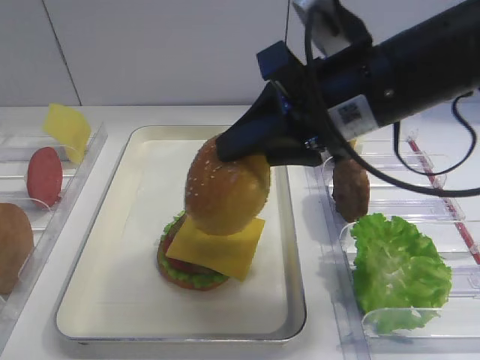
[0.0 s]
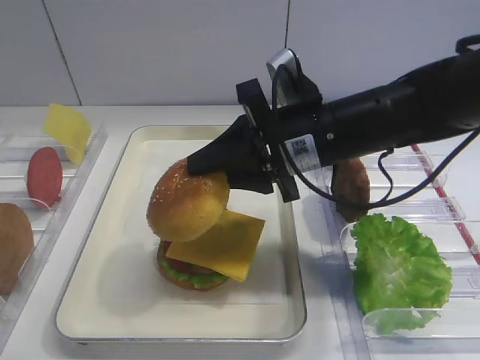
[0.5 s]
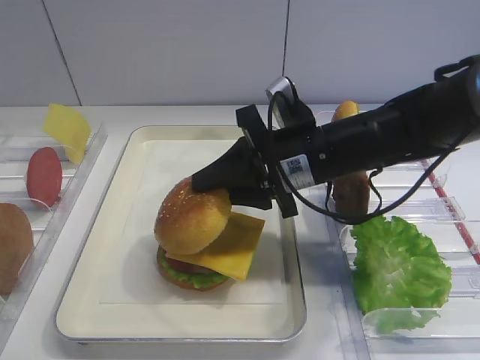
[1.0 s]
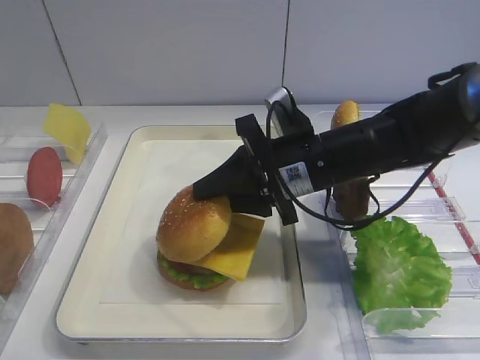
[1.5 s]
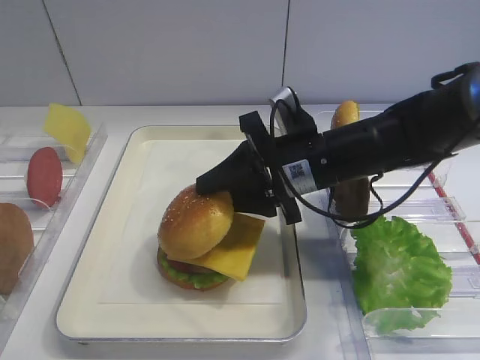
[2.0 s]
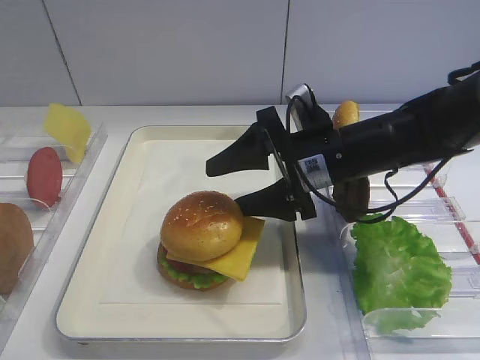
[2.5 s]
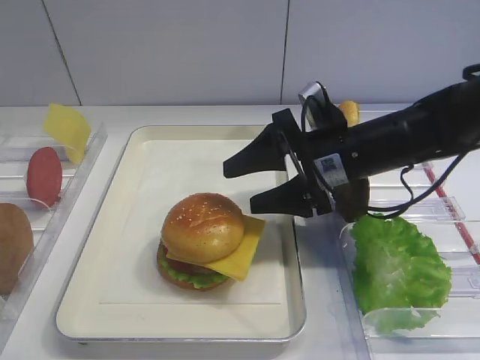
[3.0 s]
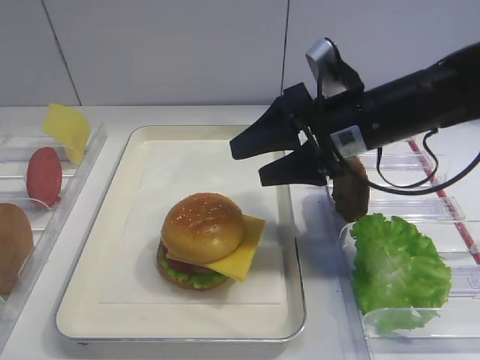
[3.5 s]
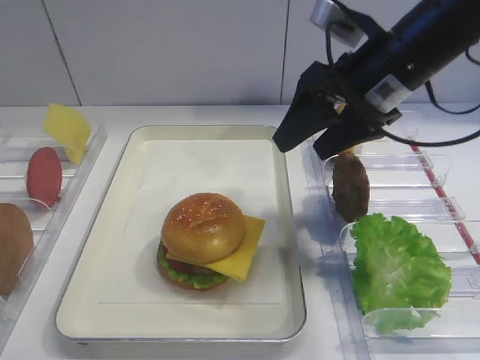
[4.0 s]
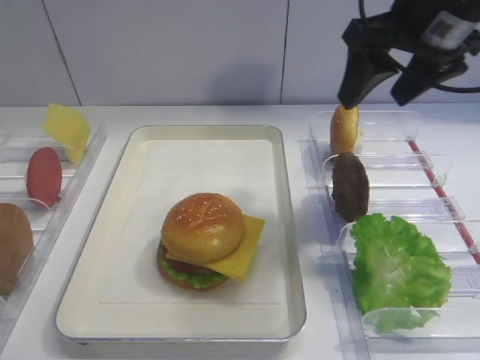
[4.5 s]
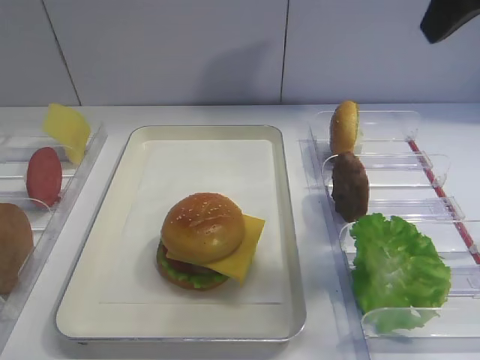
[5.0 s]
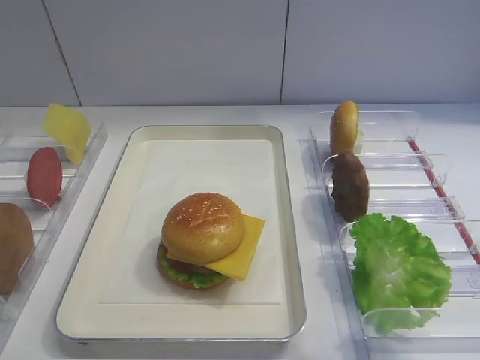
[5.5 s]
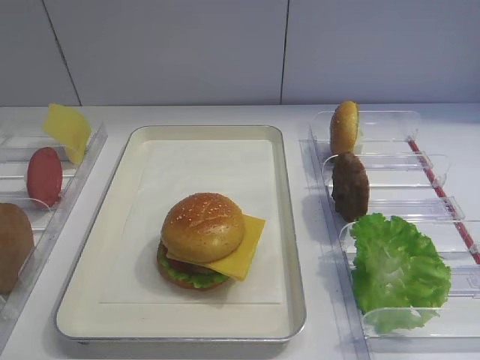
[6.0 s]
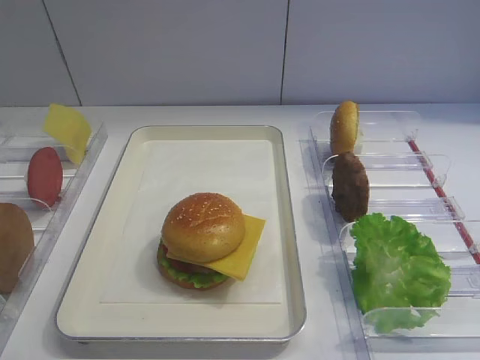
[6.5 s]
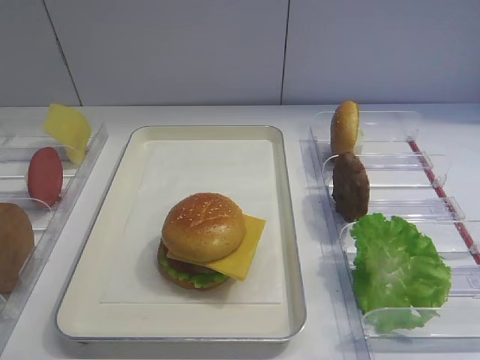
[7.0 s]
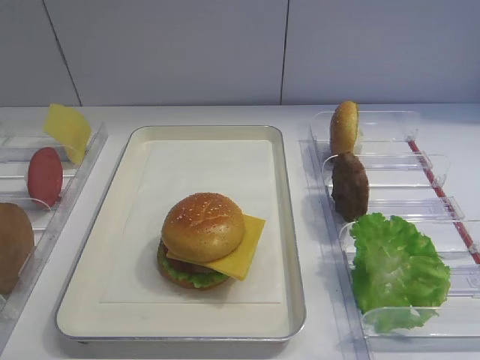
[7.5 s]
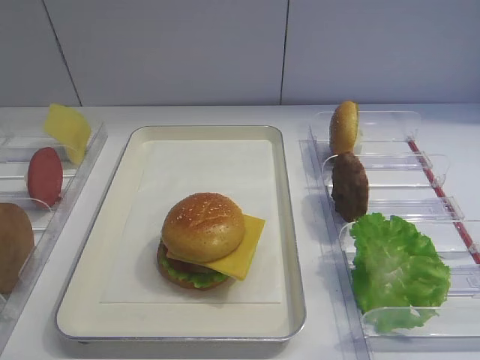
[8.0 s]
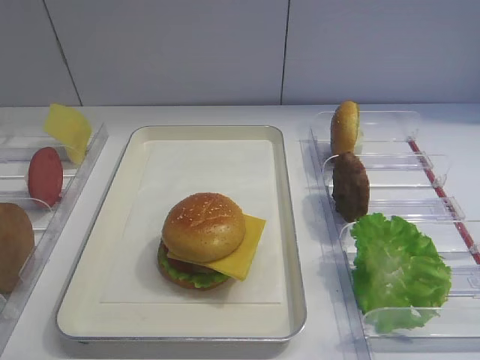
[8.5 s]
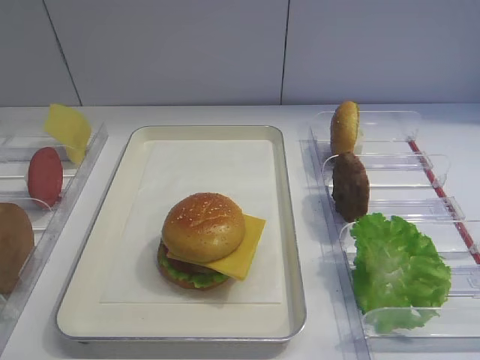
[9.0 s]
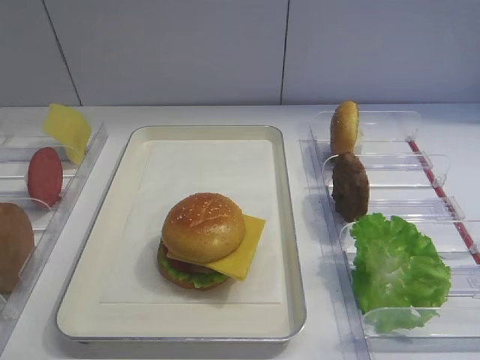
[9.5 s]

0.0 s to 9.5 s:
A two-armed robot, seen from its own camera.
Step, 0.0 to 3.0 s: Place the hamburger lid on the cheese slice with the right gripper.
0.0 to 2.0 s: The right gripper shifts about 15 cm downward and forward.
2.0 to 4.0 s: The right gripper is displaced upward and to the right by some 10 cm, and opens its fingers.
4.0 to 5.5 s: The right gripper shifts some 20 cm backward, upward and to the right.
5.5 to 7.5 s: The right gripper goes about 20 cm backward and downward.

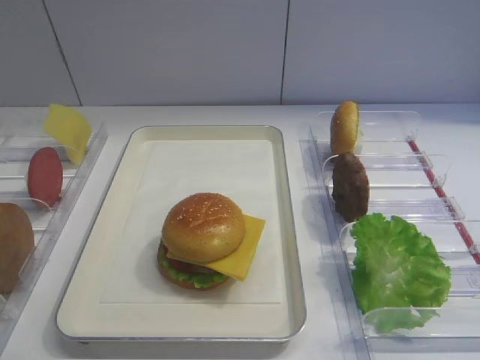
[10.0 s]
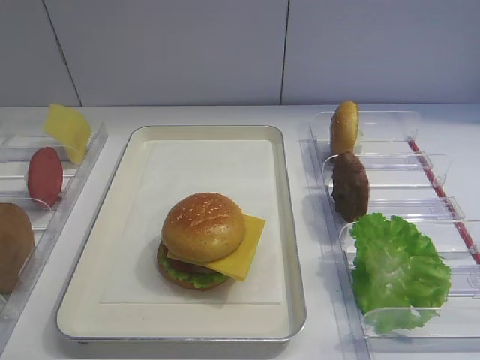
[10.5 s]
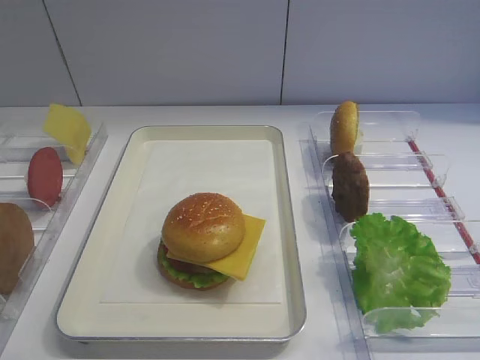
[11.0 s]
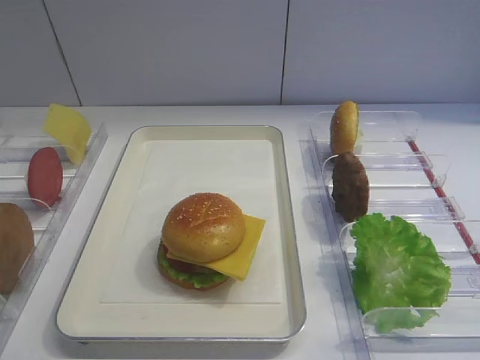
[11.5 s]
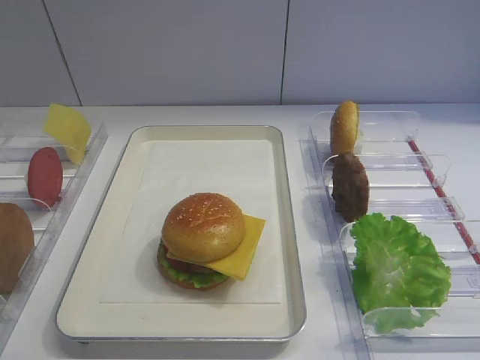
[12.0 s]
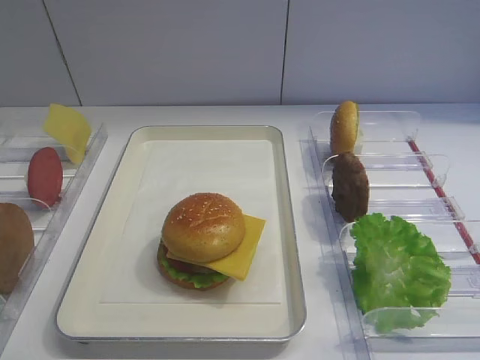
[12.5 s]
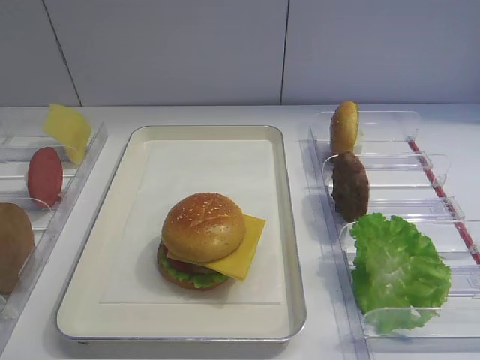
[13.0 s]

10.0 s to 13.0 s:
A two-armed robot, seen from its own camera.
10.0 to 13.0 s: The two grippers keep their place.
